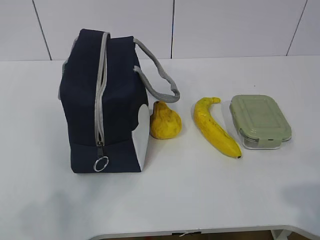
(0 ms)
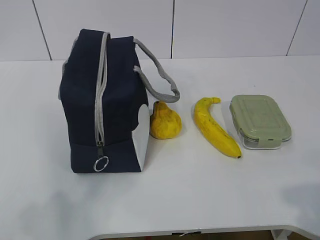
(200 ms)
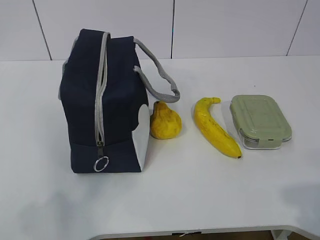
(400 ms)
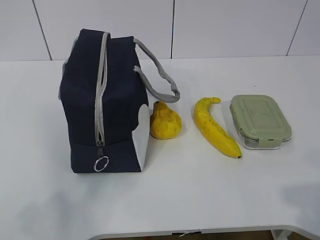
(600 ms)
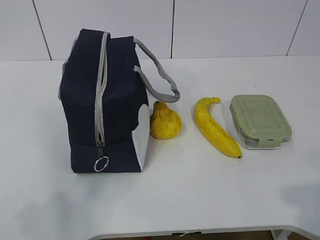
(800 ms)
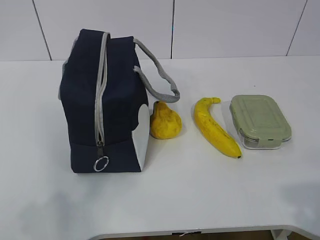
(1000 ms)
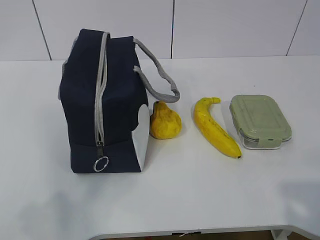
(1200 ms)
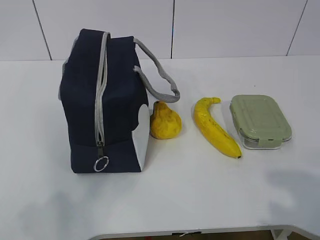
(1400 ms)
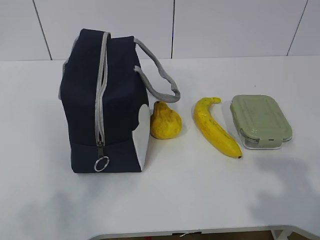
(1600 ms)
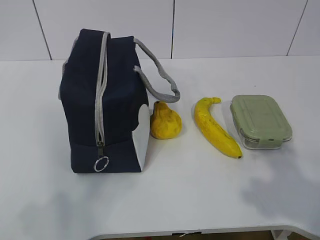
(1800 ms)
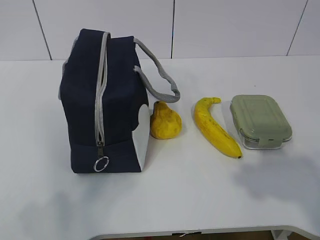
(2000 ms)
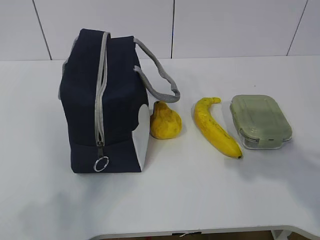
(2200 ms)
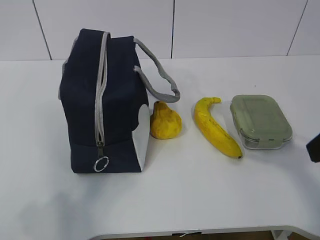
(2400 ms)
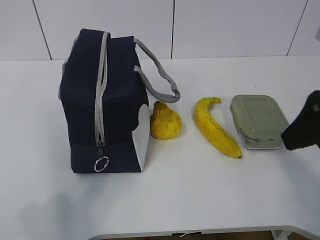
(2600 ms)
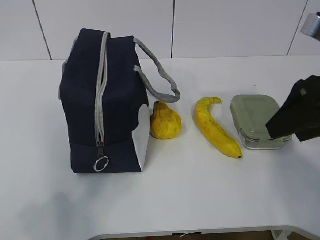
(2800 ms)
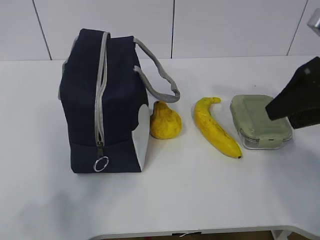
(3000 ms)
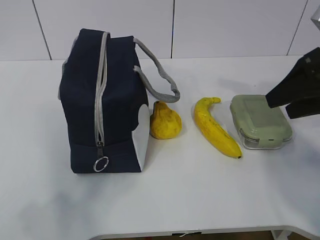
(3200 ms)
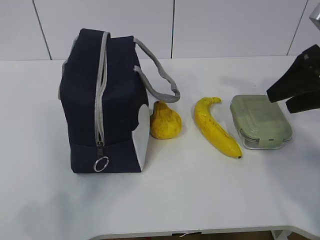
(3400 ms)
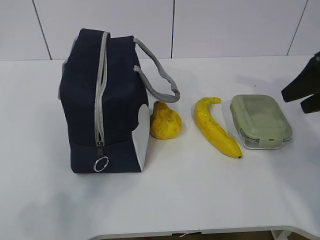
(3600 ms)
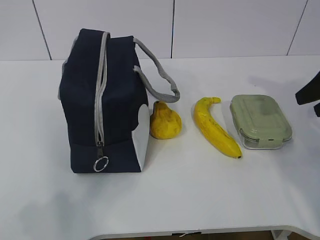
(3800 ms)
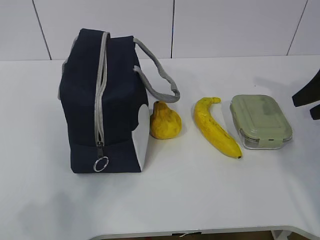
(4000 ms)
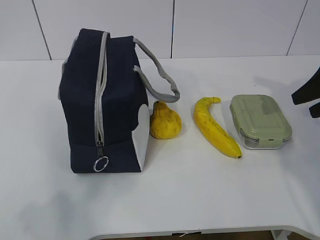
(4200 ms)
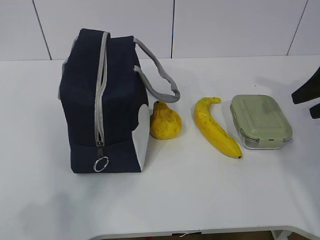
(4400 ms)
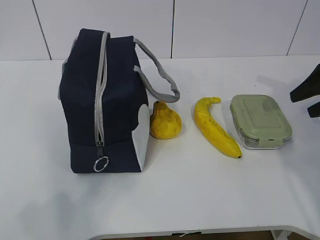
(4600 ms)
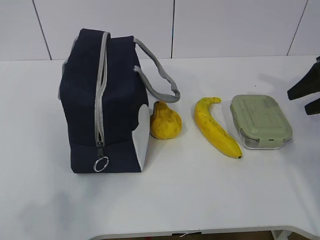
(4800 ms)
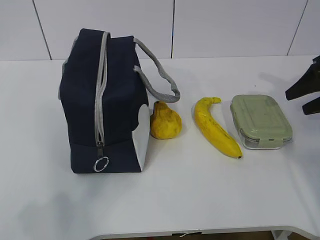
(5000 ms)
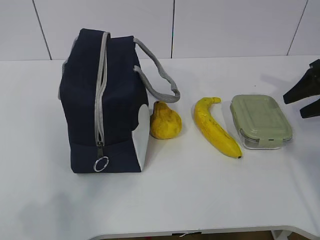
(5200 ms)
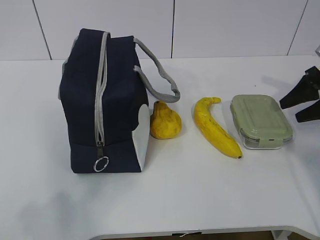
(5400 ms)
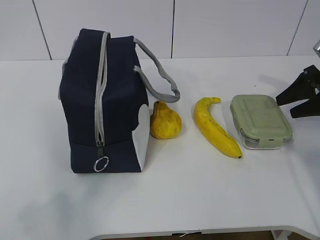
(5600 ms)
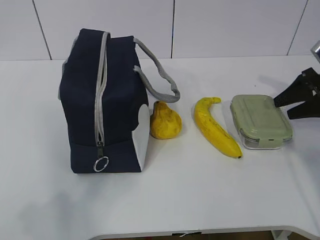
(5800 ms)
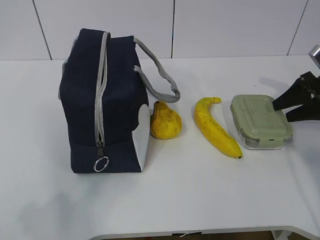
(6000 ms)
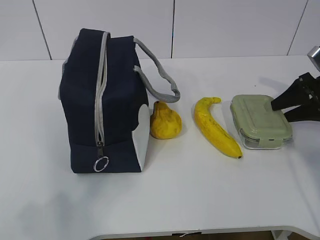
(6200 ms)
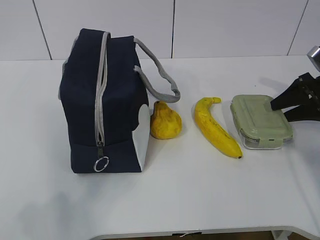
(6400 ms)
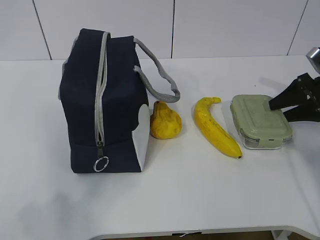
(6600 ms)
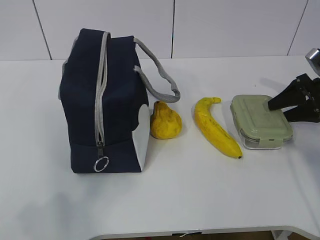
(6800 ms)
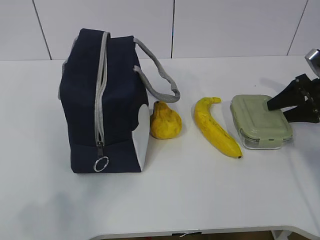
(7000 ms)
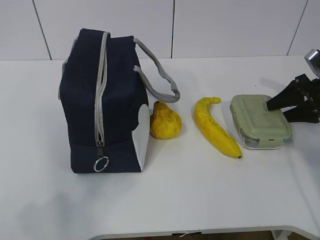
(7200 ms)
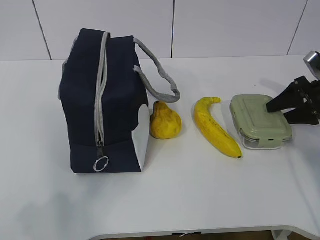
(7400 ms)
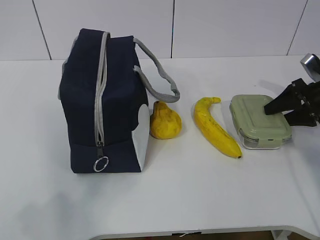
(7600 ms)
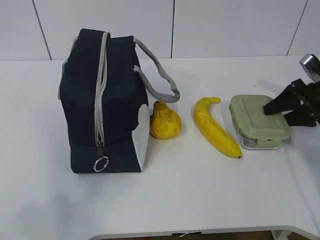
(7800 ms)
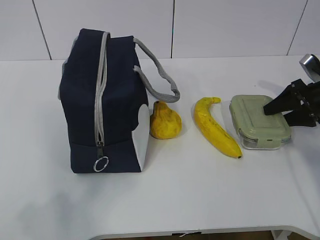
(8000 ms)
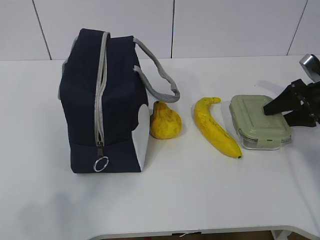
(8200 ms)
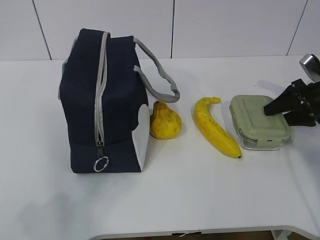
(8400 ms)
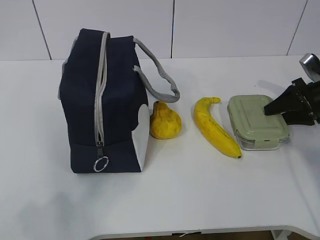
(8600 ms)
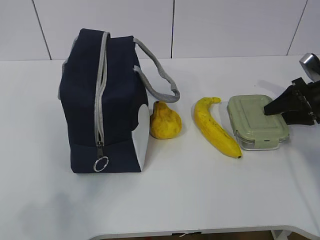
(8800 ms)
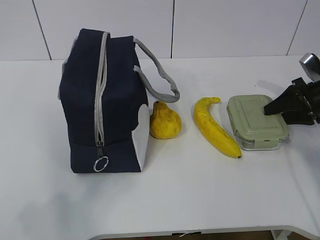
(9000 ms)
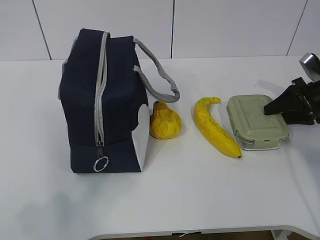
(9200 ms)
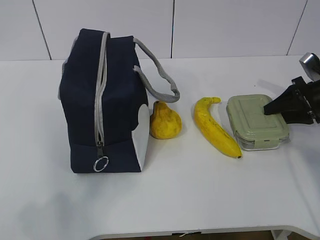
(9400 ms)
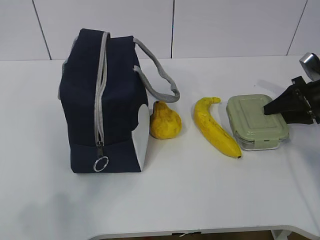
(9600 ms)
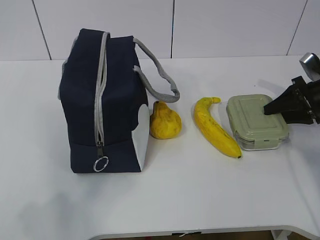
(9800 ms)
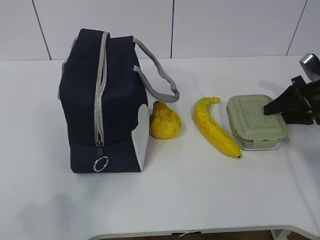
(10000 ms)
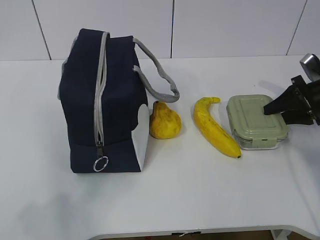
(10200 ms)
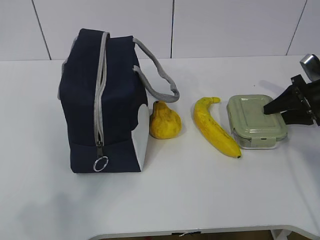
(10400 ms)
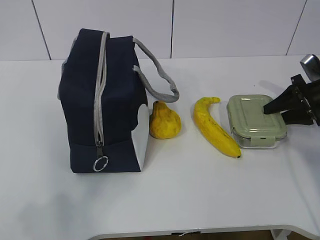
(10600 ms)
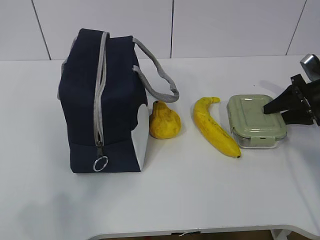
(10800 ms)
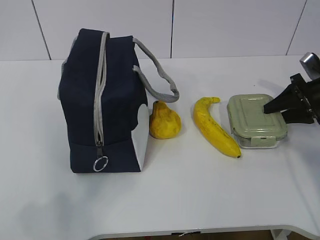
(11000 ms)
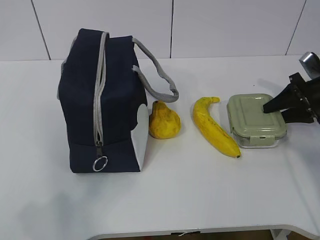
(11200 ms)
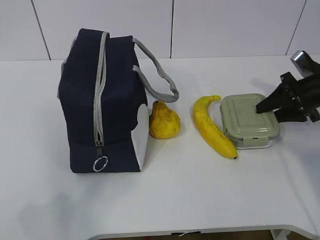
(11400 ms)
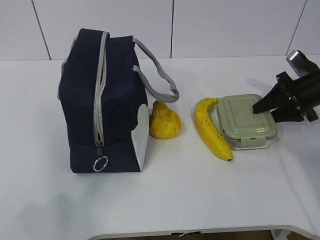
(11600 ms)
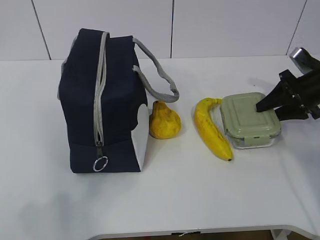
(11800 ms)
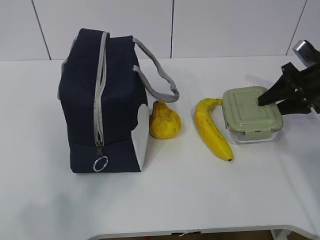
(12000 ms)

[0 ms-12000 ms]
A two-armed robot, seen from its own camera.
Step, 0 ms to 9000 ms: Grasp the box with the right gripper.
1600 ms to 3000 ms: The right gripper heads forward, covering approximately 25 cm.
3000 ms to 4400 ms: The right gripper travels to the right and forward by roughly 10 cm.
4400 ms to 6000 ms: The right gripper travels downward and forward by about 10 cm.
6000 ms to 7600 ms: The grippers make only small movements.
7600 ms to 9000 ms: The two grippers keep their place.
10400 ms to 12000 ms: There are only small adjustments of the grippers.

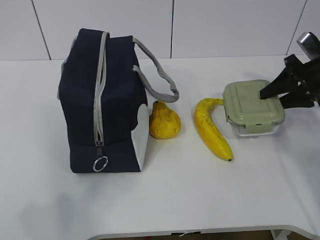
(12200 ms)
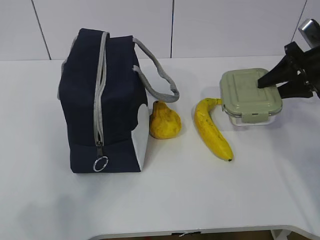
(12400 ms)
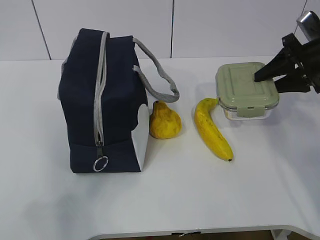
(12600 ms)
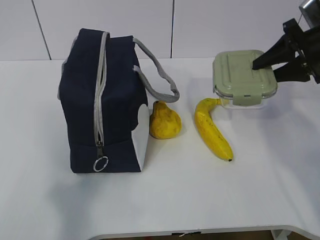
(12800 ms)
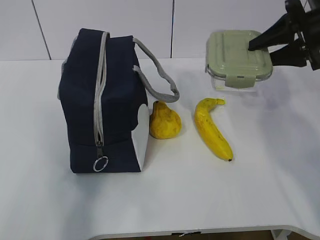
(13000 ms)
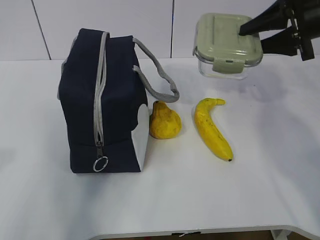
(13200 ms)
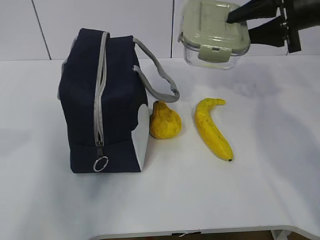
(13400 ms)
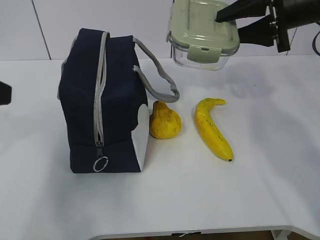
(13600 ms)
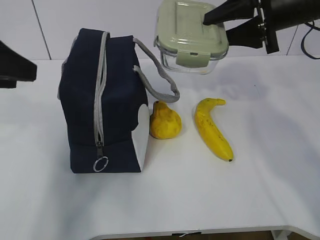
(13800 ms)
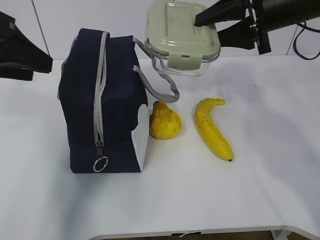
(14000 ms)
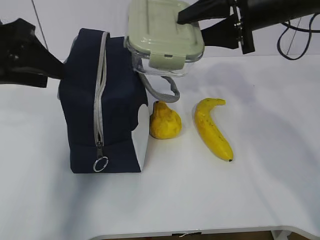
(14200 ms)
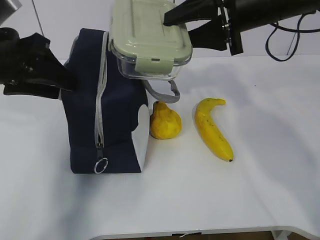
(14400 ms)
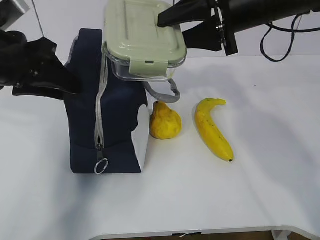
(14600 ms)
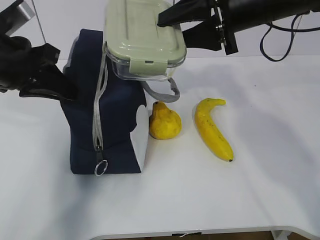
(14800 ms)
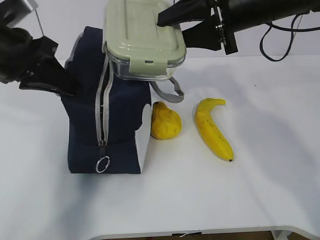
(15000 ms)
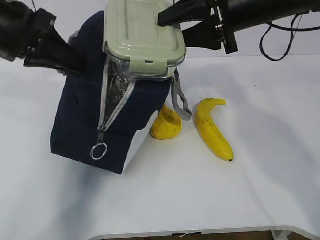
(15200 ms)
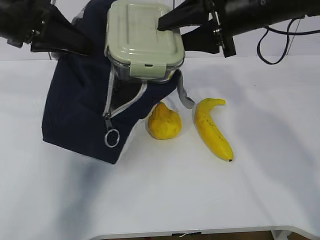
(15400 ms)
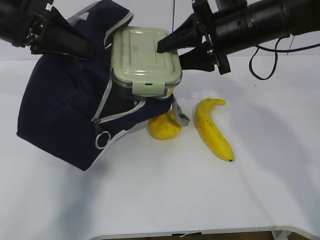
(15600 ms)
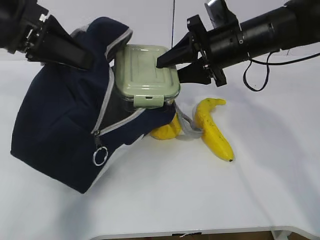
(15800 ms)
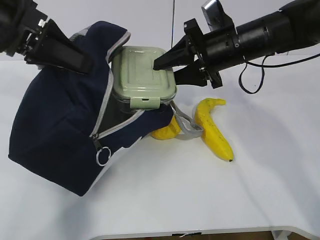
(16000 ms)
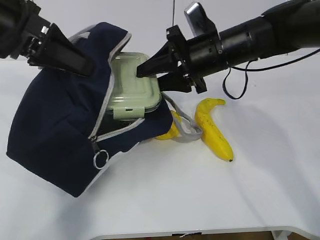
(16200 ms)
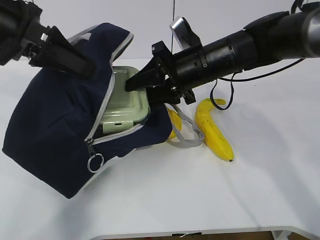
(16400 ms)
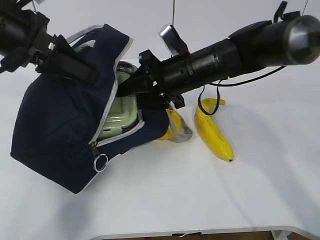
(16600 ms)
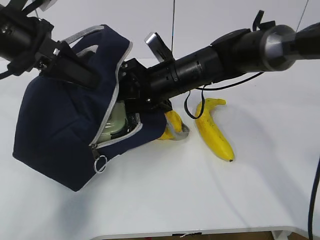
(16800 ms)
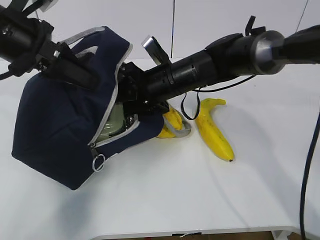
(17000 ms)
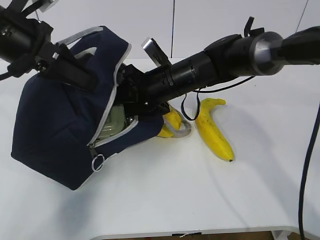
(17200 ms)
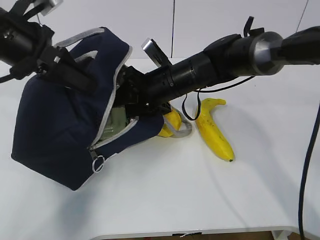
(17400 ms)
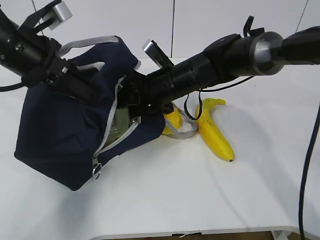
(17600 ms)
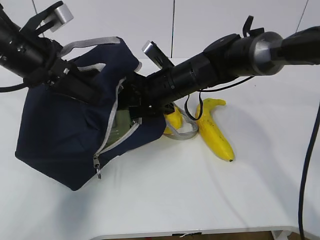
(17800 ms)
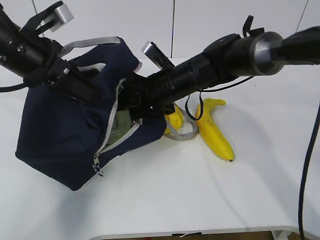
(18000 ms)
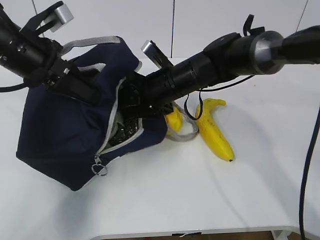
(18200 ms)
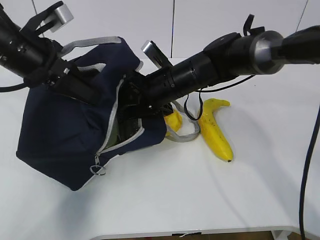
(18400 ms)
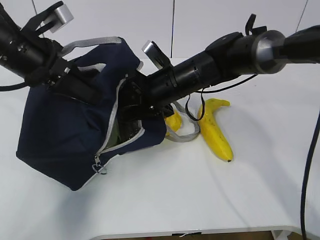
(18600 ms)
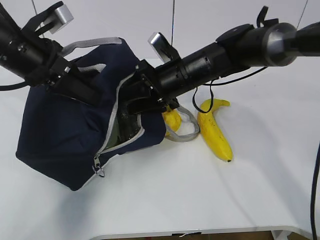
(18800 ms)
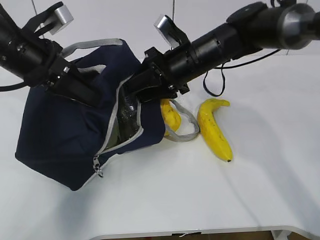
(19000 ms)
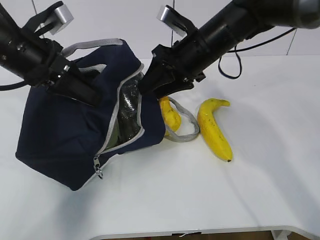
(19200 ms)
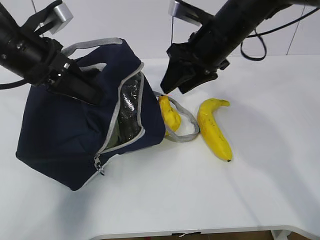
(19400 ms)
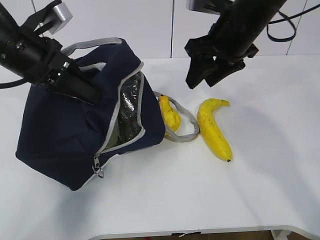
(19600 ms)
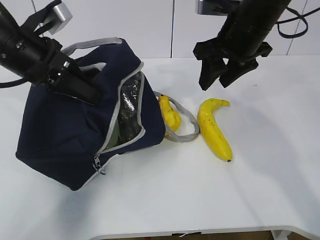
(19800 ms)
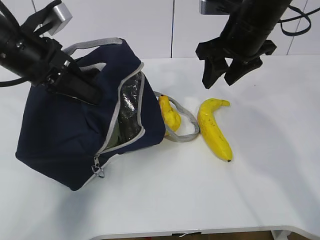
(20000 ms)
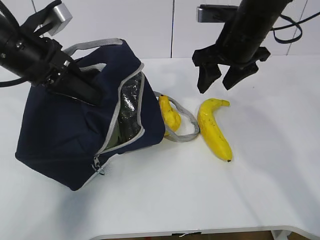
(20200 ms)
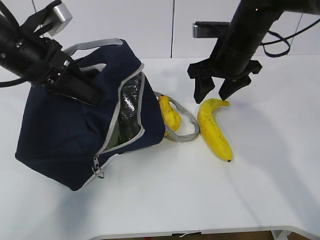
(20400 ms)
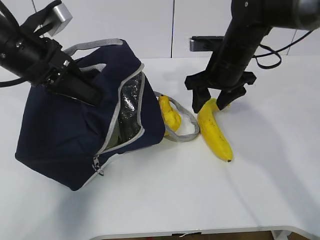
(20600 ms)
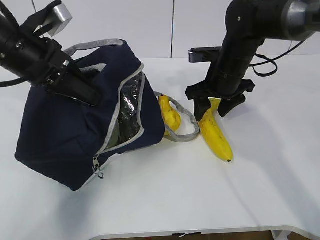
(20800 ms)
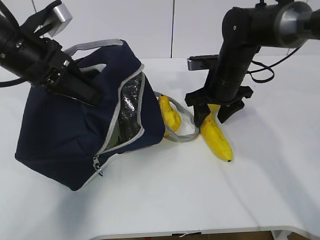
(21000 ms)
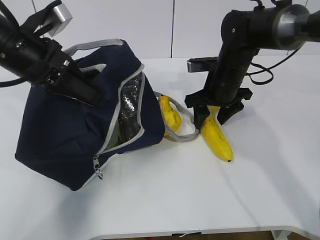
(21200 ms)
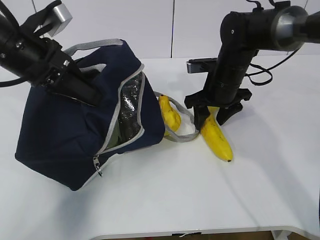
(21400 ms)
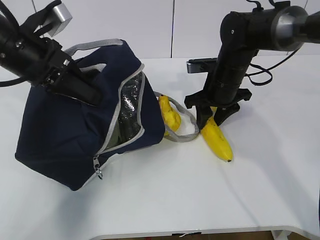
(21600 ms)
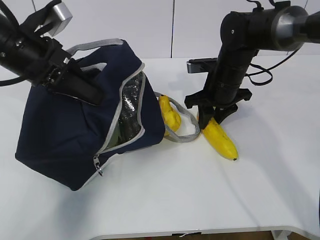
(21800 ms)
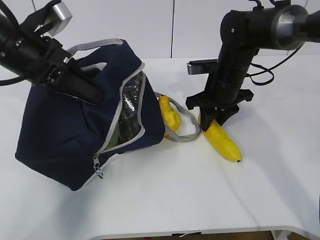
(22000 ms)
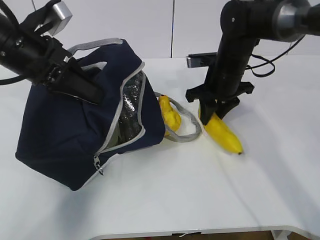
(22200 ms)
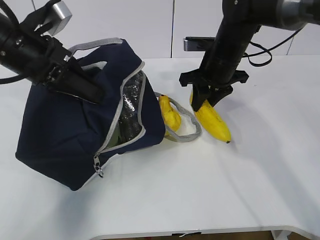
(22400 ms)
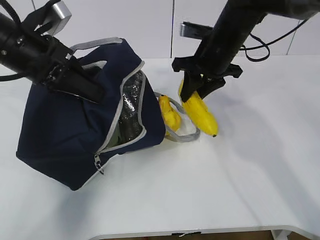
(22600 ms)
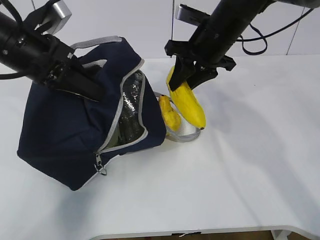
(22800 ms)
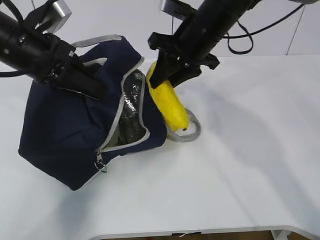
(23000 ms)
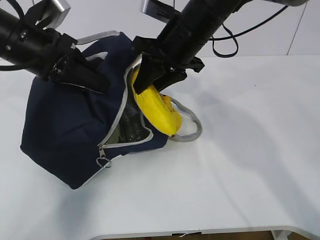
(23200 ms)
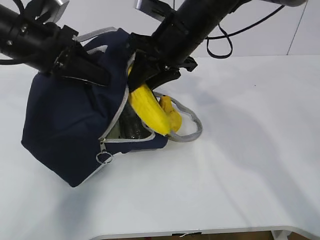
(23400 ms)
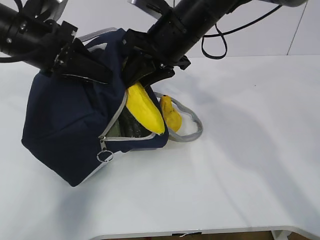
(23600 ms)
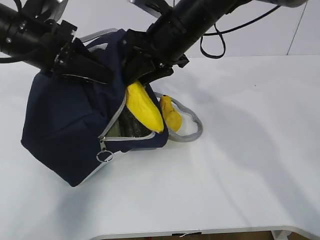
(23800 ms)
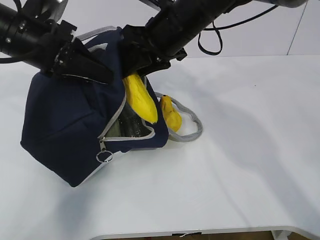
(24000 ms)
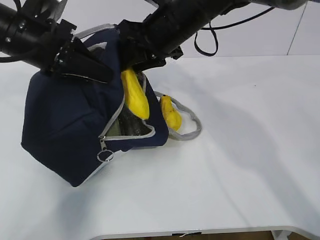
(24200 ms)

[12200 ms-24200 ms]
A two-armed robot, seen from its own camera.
Step, 12200 ms to 18600 ms: Place the box into the package with the right gripper.
Step, 18800 ms to 21800 ms: Grasp the banana with the right gripper.
12200 ms to 13800 ms: The left gripper goes some 25 cm forward; the right gripper is displaced upward and to the left by some 20 cm.
13800 ms to 15200 ms: The left gripper shifts some 10 cm forward, and closes its fingers; the right gripper shifts some 5 cm to the left.
15200 ms to 16600 ms: The right gripper travels downward and to the left by approximately 15 cm.
18200 ms to 19800 ms: The right gripper moves upward and to the right, roughly 15 cm.
19800 ms to 21200 ms: The right gripper shifts some 10 cm downward.
21200 ms to 22600 ms: The right gripper shifts some 5 cm upward, and closes up.
22600 ms to 24200 ms: The right gripper is displaced to the left and upward by about 10 cm.
